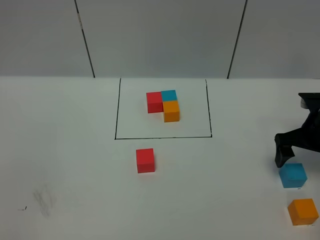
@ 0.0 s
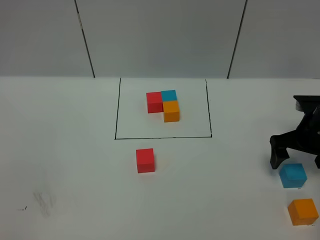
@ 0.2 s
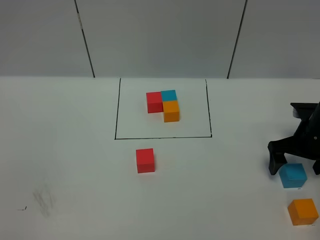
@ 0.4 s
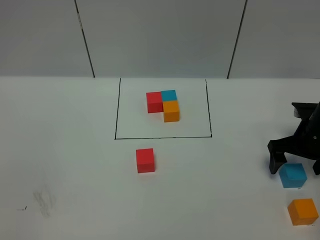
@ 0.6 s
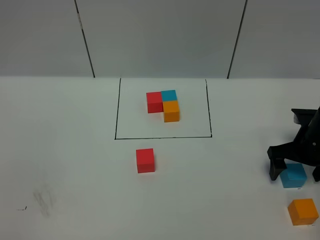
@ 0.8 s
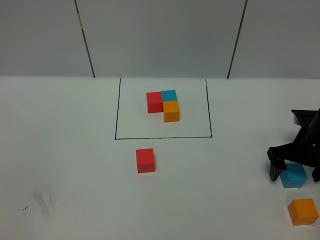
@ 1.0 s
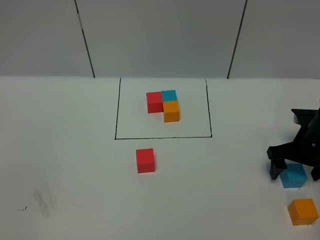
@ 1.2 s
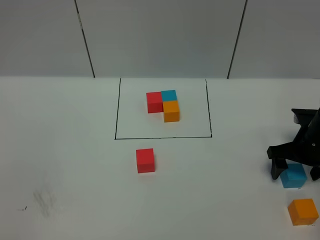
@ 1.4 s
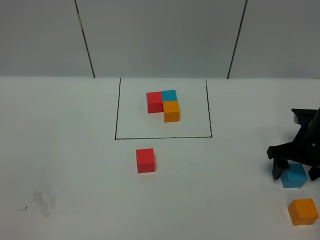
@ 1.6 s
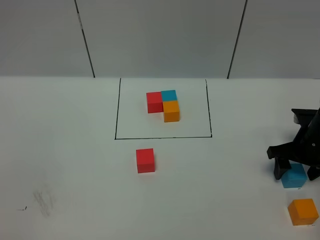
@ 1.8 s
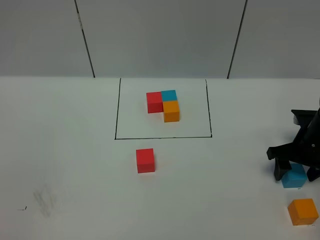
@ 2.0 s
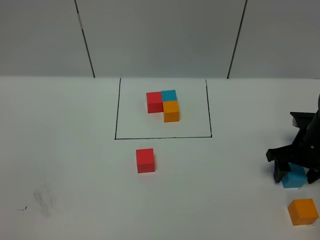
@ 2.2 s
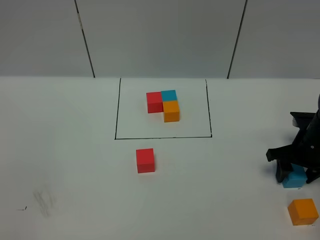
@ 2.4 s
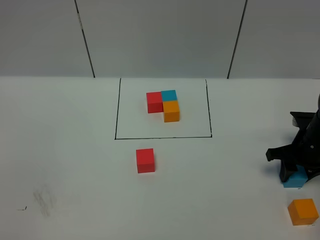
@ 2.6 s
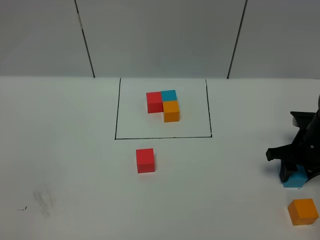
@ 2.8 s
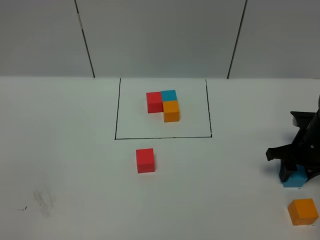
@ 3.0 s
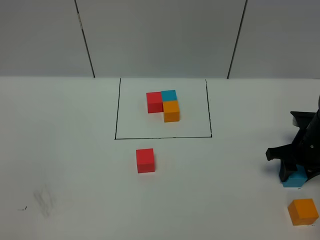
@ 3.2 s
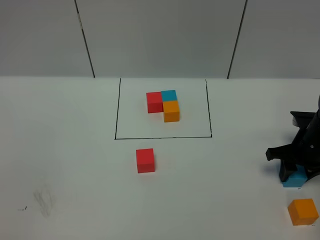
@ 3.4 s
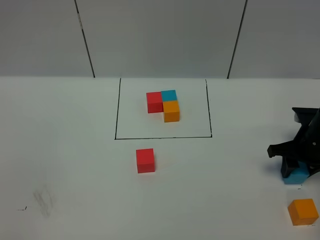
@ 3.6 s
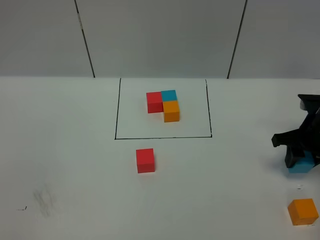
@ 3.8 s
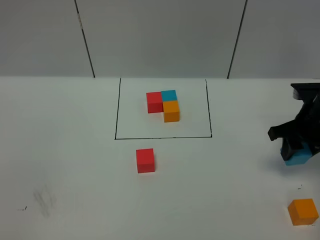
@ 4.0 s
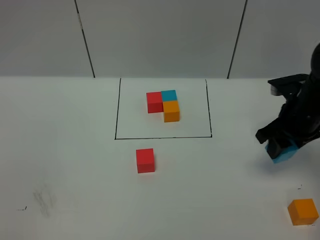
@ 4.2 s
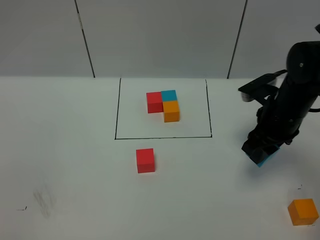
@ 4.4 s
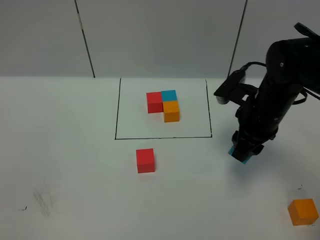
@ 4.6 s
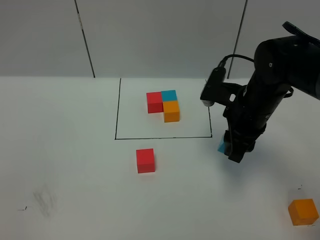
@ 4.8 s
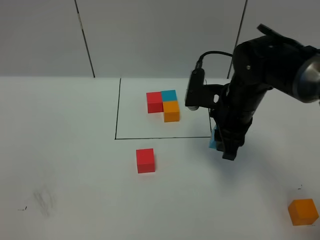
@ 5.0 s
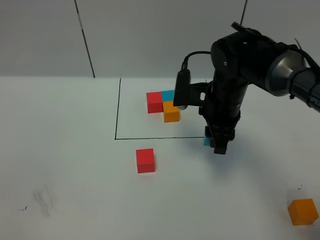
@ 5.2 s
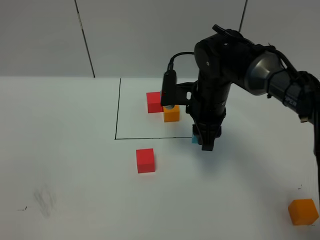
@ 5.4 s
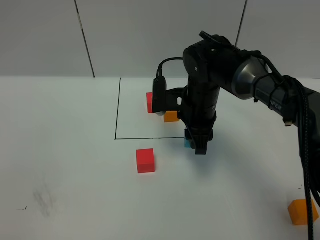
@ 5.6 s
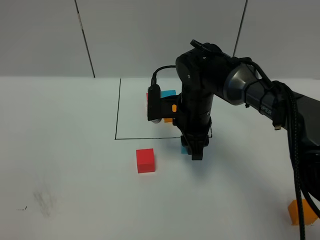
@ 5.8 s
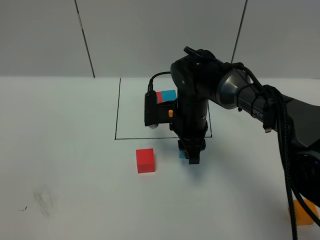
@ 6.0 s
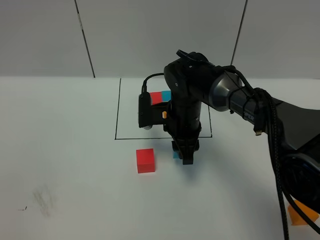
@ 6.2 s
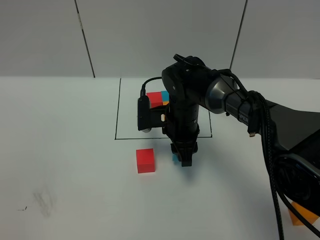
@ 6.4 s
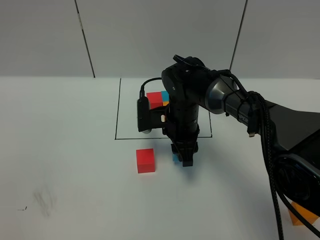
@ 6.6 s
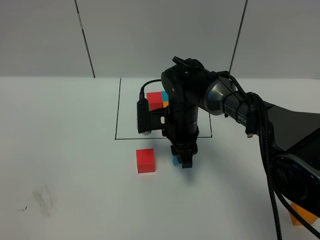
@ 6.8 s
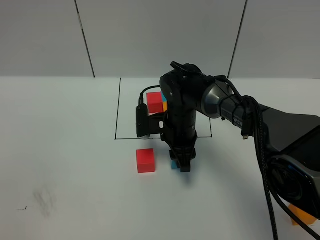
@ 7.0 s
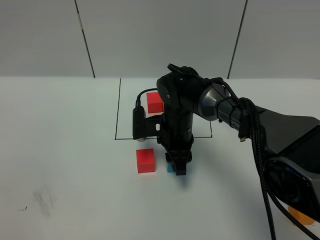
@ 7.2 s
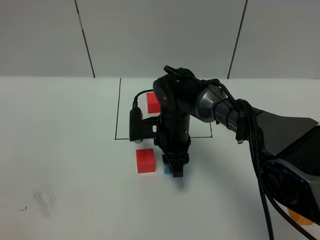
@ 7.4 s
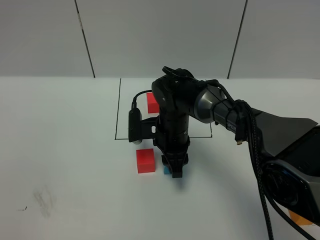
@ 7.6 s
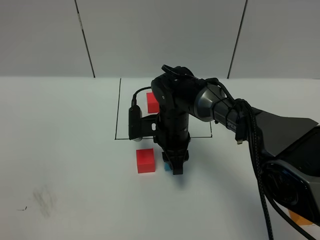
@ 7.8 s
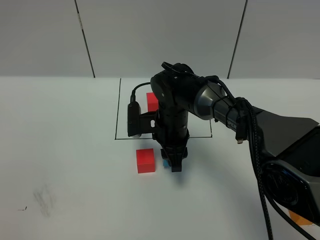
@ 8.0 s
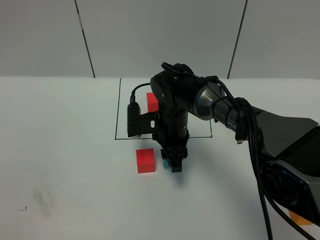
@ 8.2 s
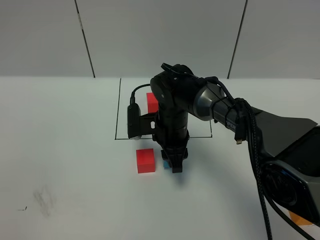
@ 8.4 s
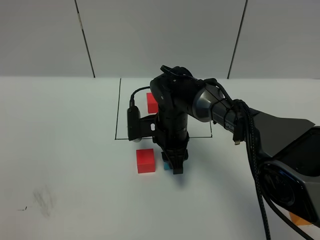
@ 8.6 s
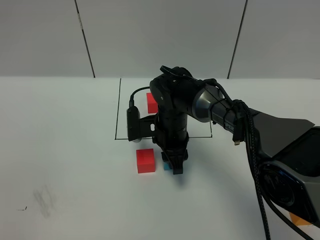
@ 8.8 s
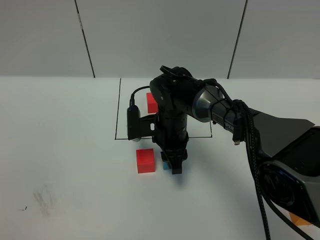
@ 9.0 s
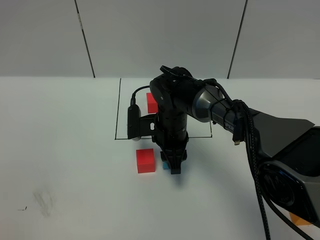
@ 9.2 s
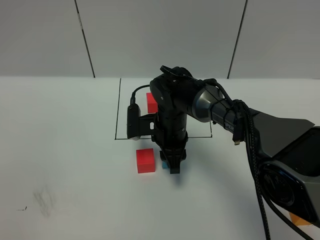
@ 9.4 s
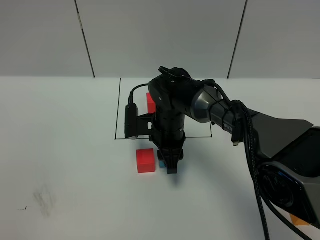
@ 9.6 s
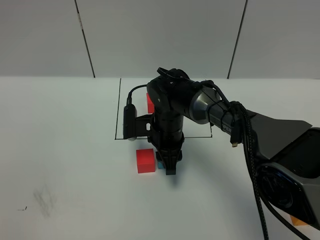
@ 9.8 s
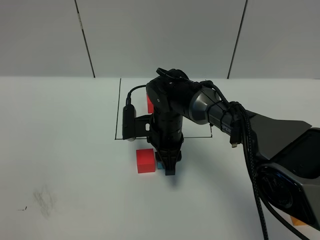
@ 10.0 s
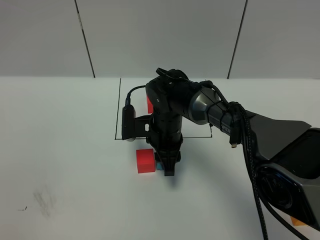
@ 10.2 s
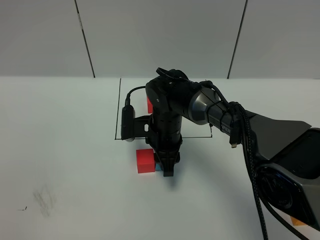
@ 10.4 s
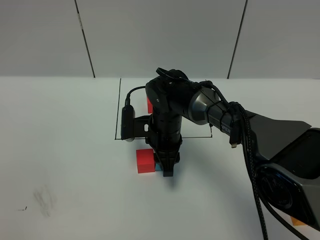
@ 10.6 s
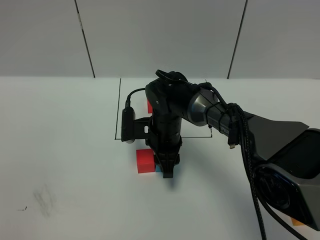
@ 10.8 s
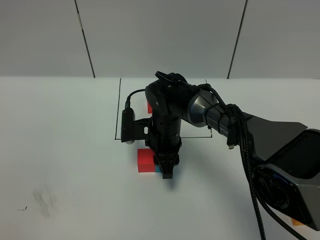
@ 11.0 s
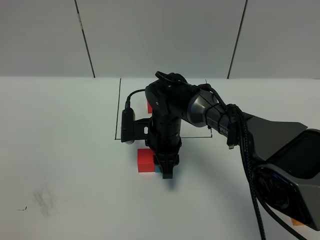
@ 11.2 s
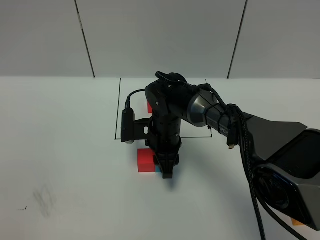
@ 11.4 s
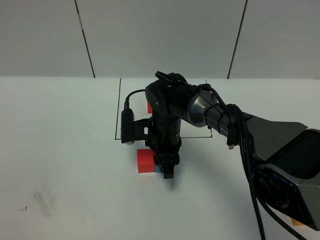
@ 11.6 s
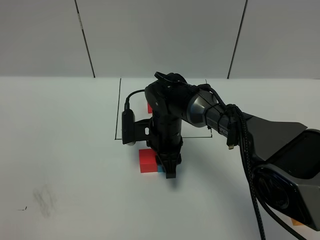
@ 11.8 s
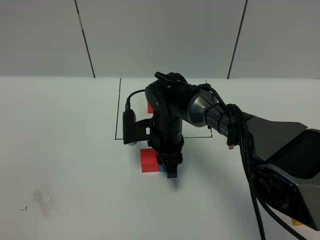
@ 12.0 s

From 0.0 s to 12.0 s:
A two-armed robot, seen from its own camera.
Task of the whole recording: According to the building block template in front, assemble the scattered blocks together.
From 0.0 s to 1.6 s: The grippers make only small movements.
From 1.6 s to 3.0 s: The right gripper closes its fingers.
From 3.0 s to 4.4 s: The right gripper goes some 15 cm upward and to the left.
From 4.4 s to 6.0 s: The right gripper heads to the left, covering roughly 15 cm.
From 6.0 s to 7.6 s: The right gripper moves some 5 cm.
From 7.6 s to 10.4 s: Both grippers stay put.
From 10.4 s to 12.0 s: Both grippers stay about where they are.

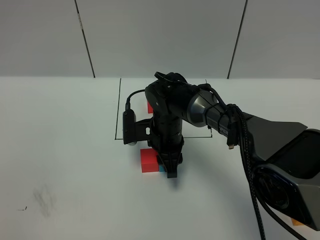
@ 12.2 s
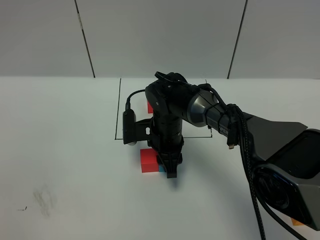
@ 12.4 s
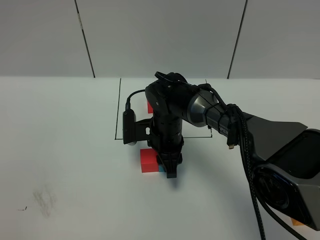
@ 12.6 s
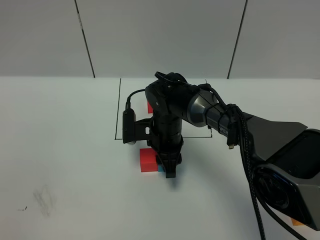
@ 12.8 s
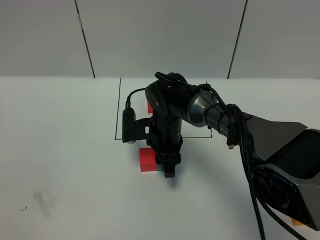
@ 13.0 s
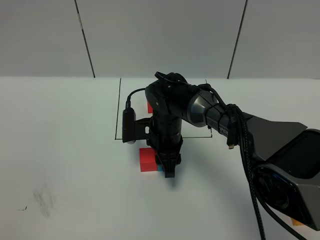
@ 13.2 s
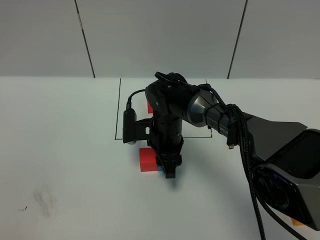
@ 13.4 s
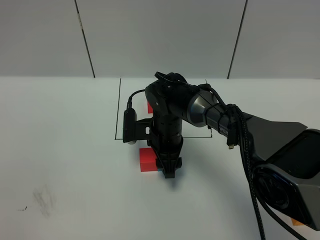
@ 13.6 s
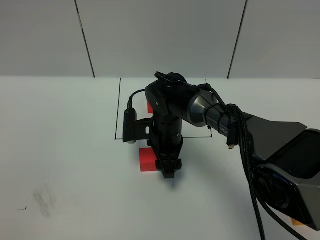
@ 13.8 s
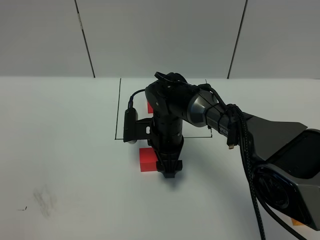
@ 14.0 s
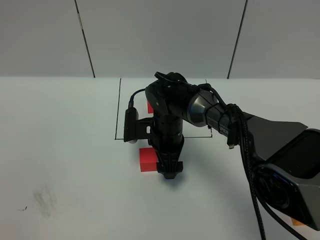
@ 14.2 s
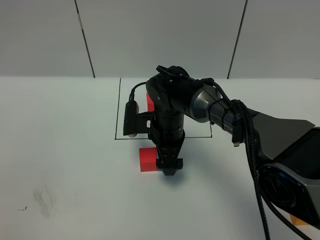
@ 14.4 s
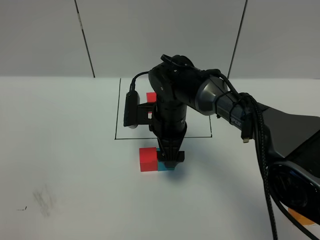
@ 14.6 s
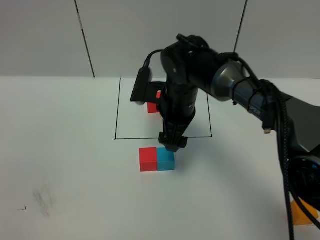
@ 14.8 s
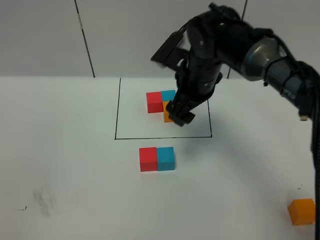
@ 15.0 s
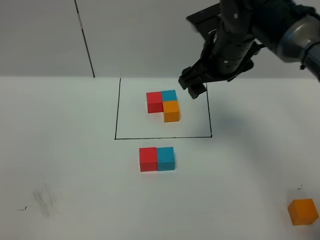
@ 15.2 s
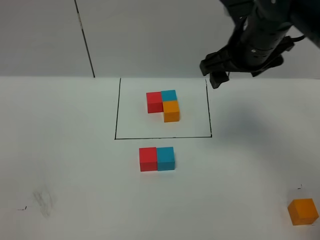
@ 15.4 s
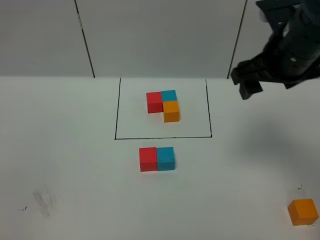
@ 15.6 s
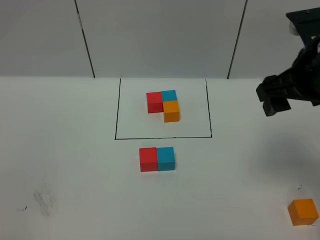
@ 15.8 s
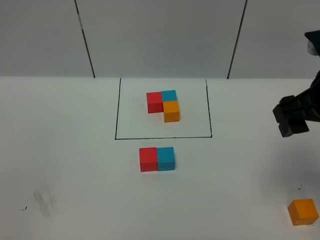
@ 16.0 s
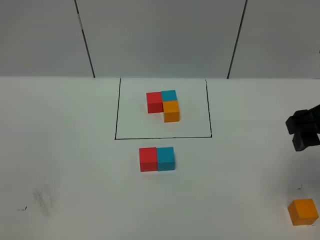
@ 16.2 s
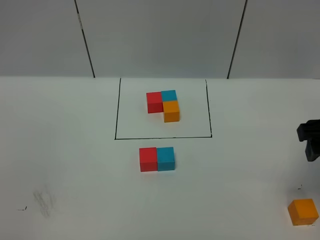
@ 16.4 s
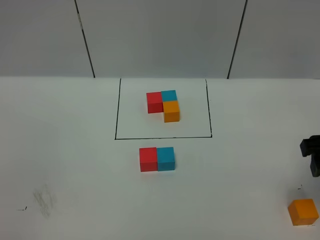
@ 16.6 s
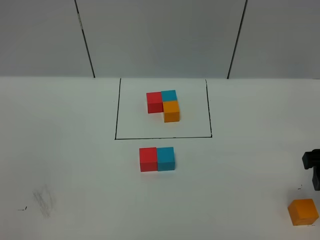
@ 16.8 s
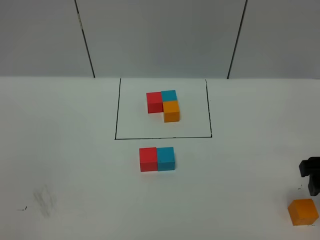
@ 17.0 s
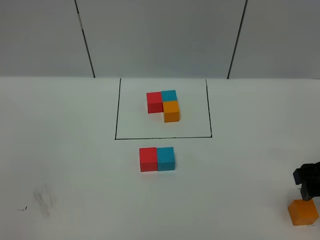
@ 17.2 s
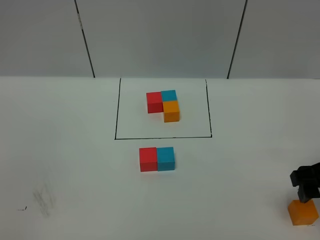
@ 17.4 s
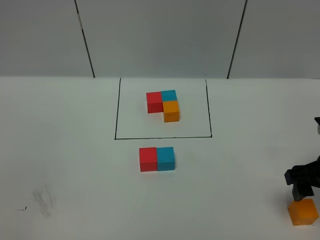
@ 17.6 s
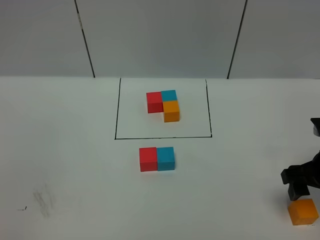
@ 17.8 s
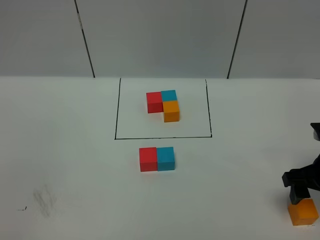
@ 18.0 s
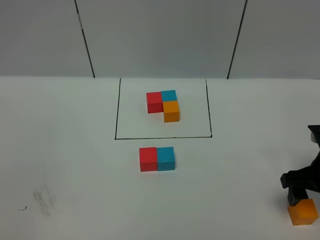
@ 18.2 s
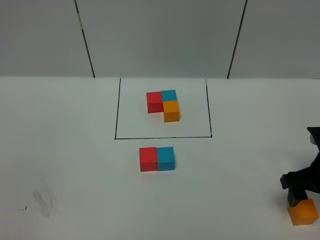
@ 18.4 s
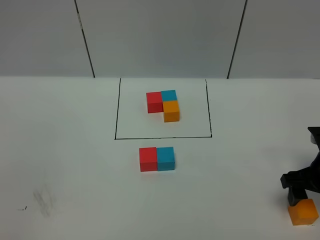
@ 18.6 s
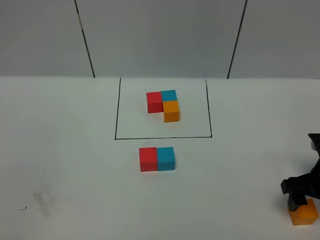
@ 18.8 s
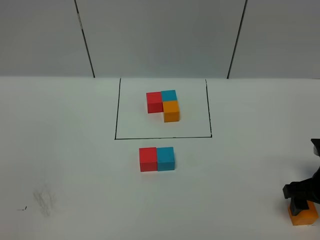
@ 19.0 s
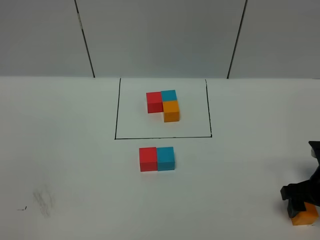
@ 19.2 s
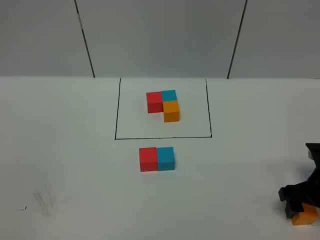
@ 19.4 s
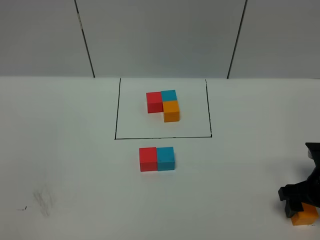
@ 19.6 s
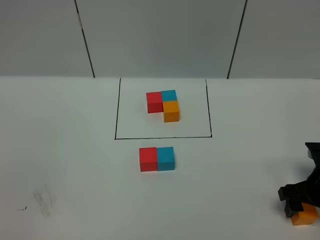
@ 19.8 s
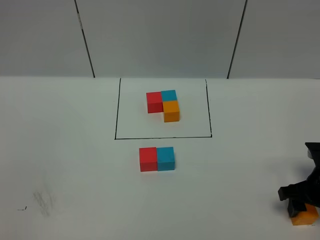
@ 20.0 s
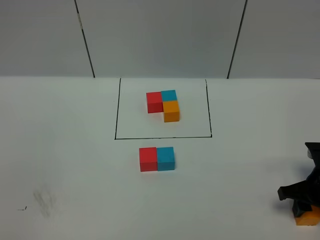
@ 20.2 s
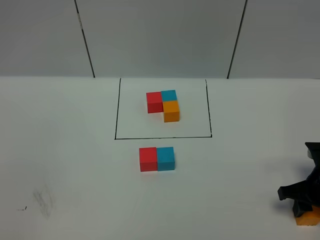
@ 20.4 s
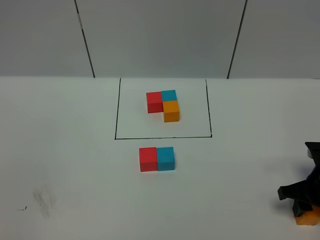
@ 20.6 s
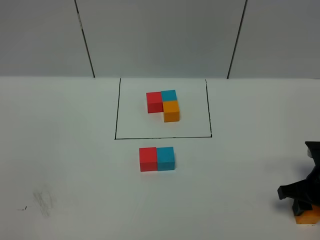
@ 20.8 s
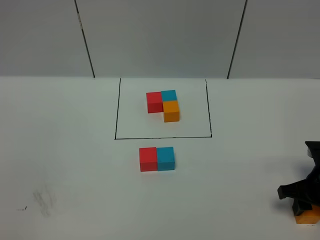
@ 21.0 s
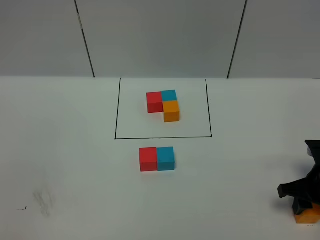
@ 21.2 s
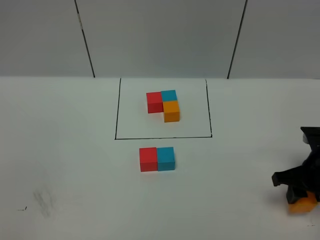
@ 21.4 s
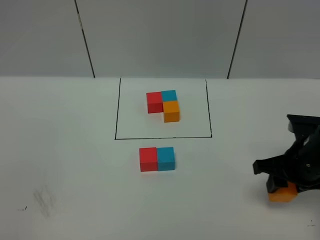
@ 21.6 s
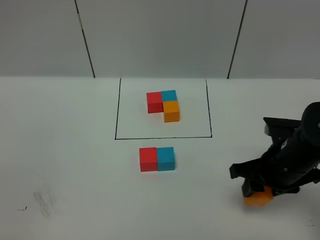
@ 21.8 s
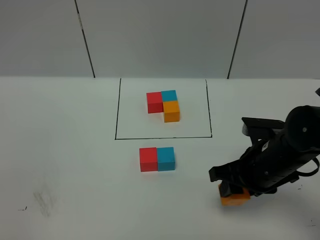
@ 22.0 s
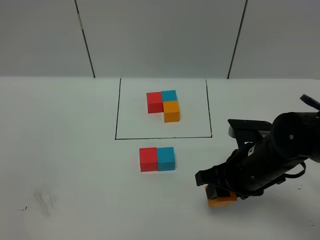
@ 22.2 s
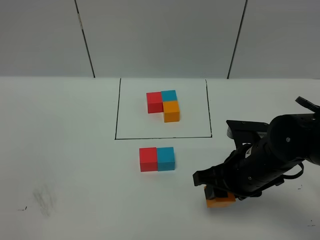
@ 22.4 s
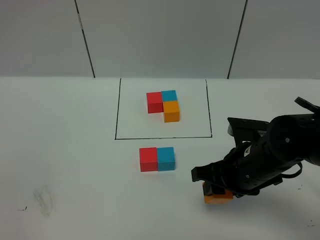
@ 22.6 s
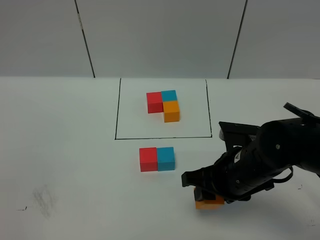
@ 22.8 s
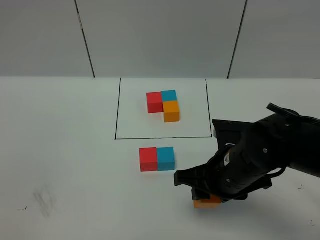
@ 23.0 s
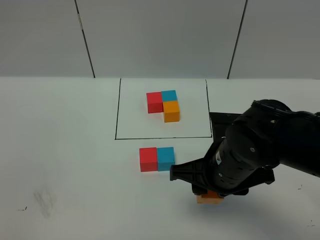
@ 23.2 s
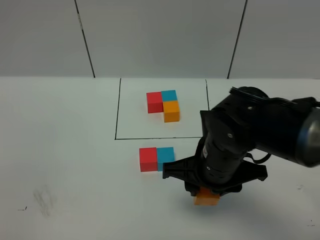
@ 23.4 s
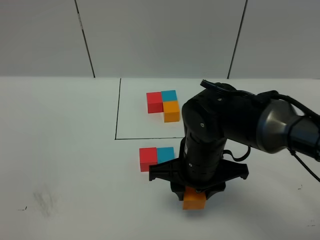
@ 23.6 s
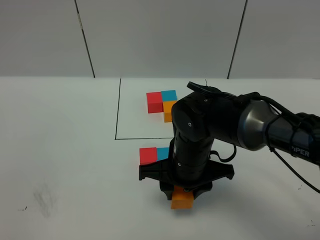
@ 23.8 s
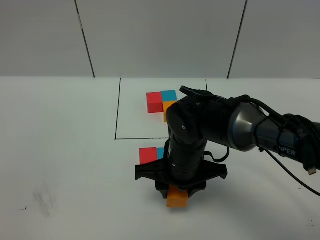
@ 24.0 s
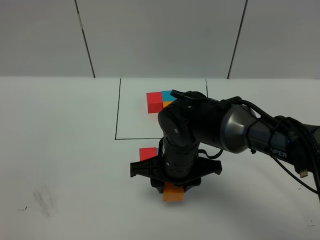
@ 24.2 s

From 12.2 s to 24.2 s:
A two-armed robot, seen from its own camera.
Task of the whole recording: According to the building block template in front, assemble the scattered blocks together.
From 12.2 s to 13.8 s: The right gripper opens its fingers.
From 13.8 s to 15.2 s: The right gripper is displaced upward and to the right by approximately 20 cm.
From 15.2 s to 16.6 s: The right gripper moves to the right and backward, some 25 cm.
From 16.6 s to 18.2 s: The right gripper moves downward, some 10 cm.
From 18.2 s to 19.8 s: The right gripper changes place by some 5 cm.
From 19.8 s to 21.2 s: The right gripper closes.
From 21.2 s to 22.6 s: The right gripper heads to the left, covering about 15 cm.
From 22.6 s to 24.2 s: The right gripper moves to the left, about 10 cm.
